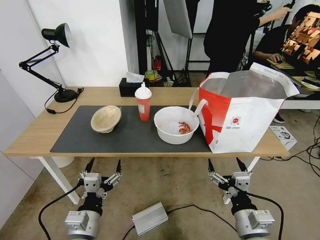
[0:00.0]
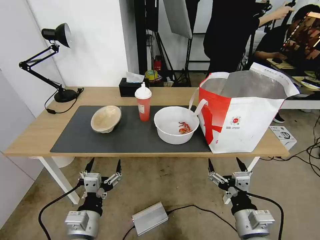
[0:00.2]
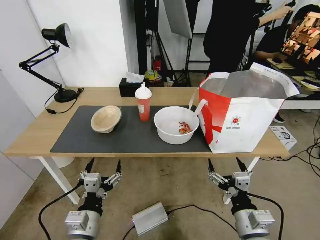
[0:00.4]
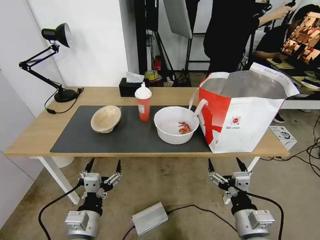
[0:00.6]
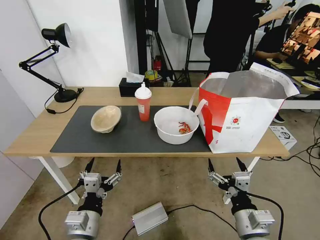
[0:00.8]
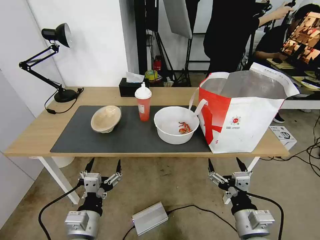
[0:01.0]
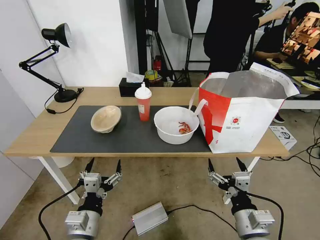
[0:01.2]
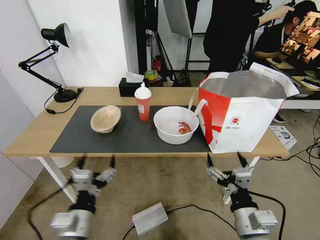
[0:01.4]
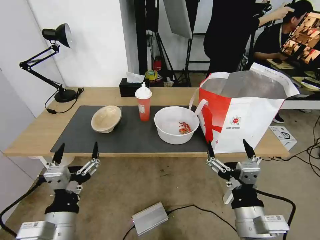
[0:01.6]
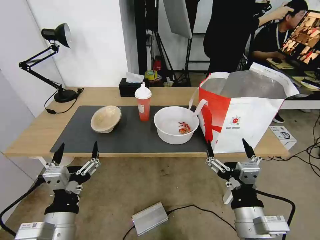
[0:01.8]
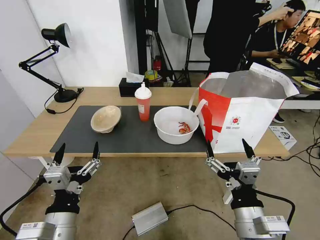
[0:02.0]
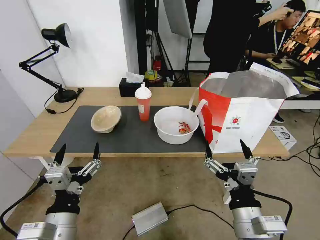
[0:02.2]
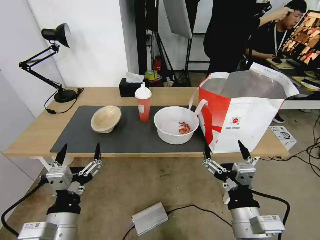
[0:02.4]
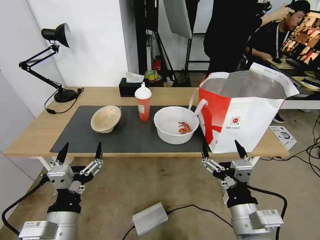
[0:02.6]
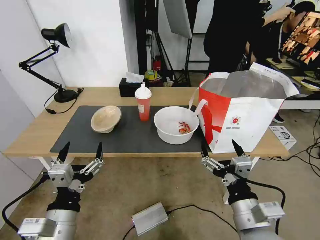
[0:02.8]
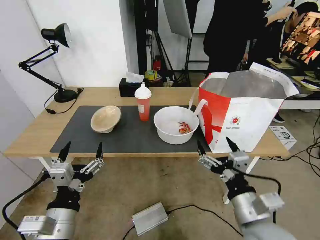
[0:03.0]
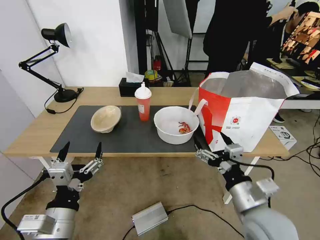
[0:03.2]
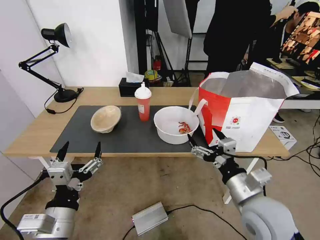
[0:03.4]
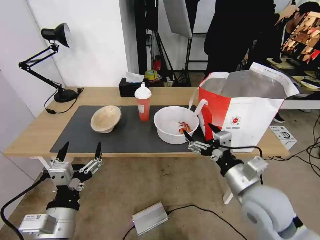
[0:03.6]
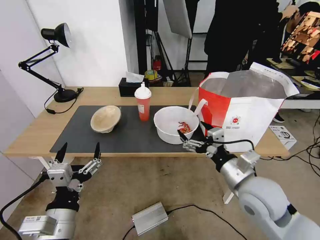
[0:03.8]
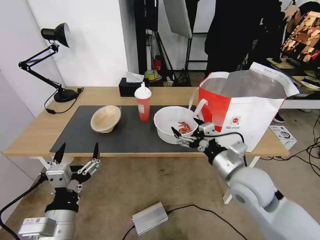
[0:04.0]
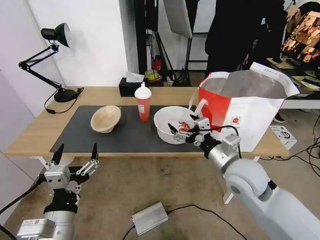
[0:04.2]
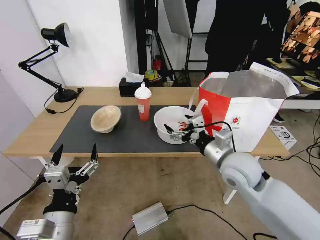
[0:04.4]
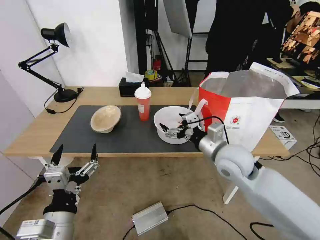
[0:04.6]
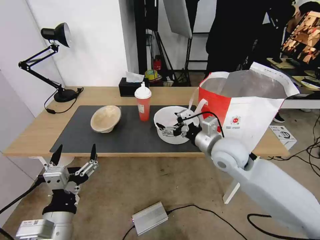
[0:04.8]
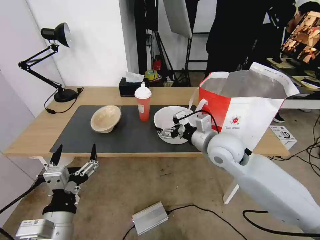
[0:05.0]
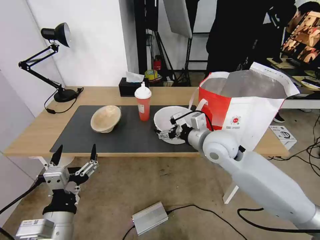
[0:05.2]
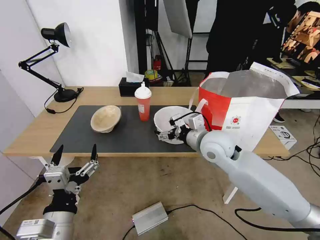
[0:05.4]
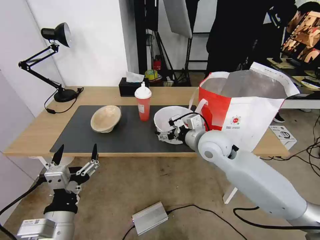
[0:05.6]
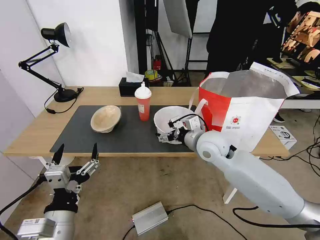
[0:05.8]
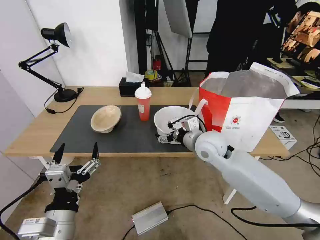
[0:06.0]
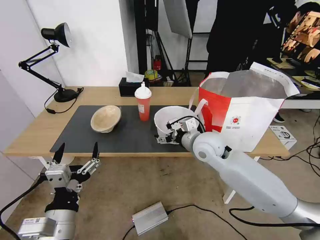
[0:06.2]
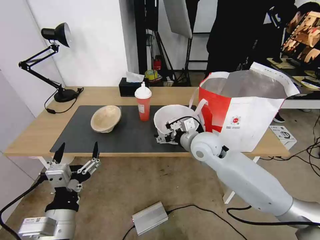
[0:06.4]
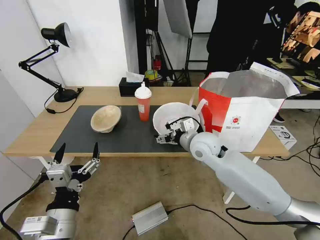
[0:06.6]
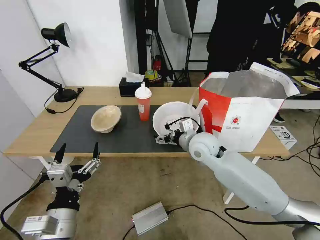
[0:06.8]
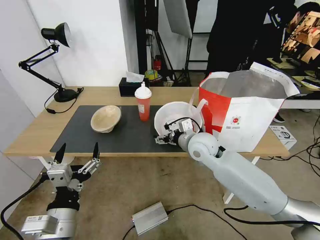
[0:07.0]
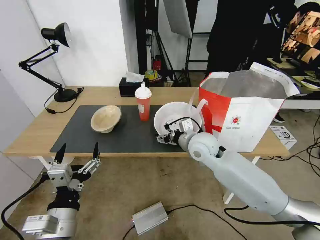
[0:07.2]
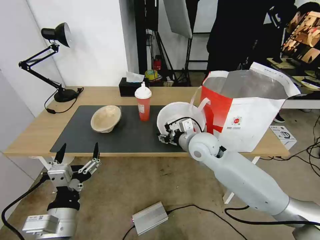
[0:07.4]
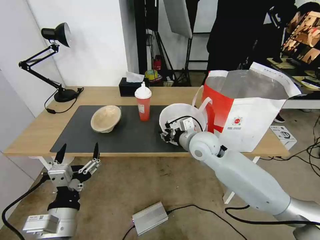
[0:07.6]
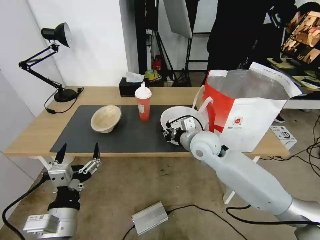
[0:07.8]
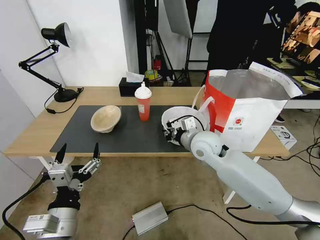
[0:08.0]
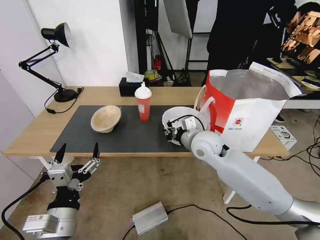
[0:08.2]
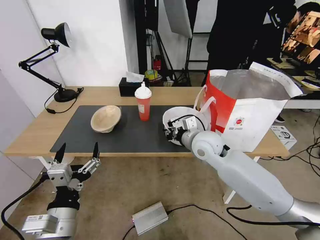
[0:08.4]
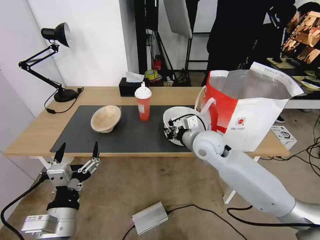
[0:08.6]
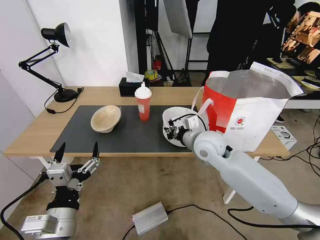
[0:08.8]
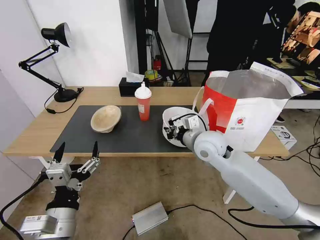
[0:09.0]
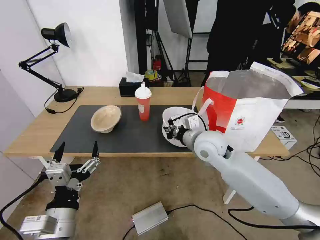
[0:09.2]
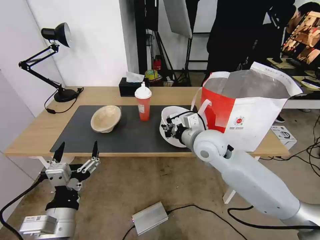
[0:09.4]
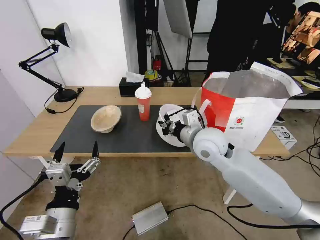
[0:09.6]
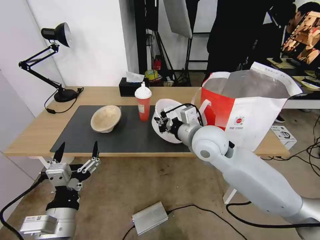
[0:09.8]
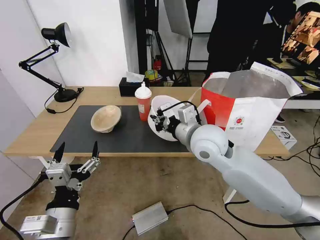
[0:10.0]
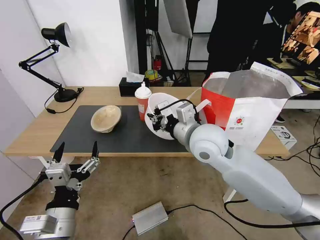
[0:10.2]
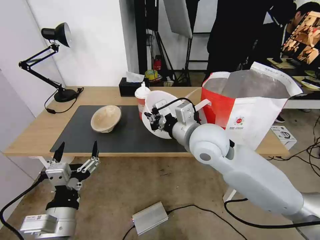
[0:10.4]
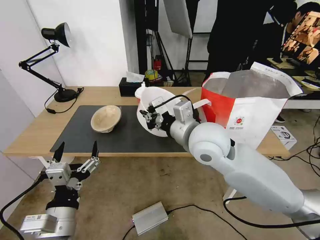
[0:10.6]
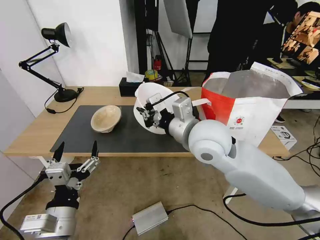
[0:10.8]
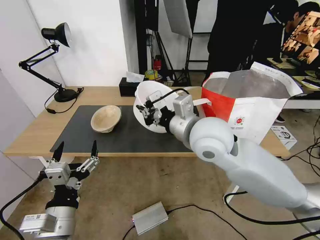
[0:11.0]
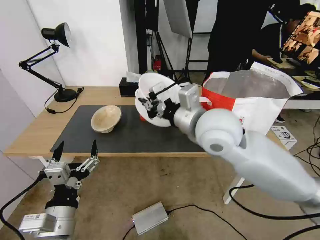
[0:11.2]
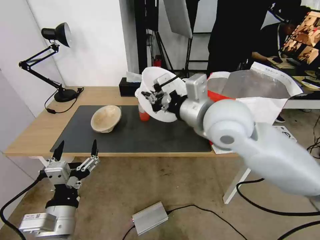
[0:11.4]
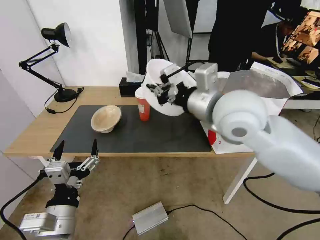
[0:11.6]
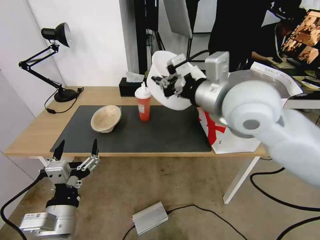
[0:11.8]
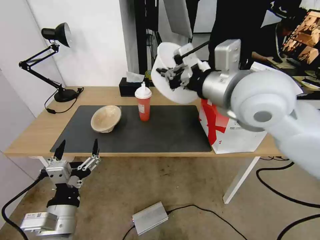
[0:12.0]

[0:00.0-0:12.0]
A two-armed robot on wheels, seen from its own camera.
Task of the whole recording: Pick up the trash from the table and place it into the takeout bag.
0:01.6 to 0:03.0: The grippers make only small movements.
0:03.0 to 0:04.4: The right gripper moves forward, roughly 15 cm.
0:04.4 to 0:06.0: The right gripper heads forward and to the left, covering some 10 cm.
0:06.0 to 0:07.6: The right gripper closes.
0:07.6 to 0:09.0: The right gripper closes.
0:09.0 to 0:10.4: The right gripper goes roughly 10 cm upward and backward.
0:10.4 to 0:12.0: The right gripper heads upward and to the right, covering roughly 15 cm.

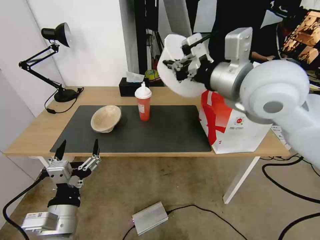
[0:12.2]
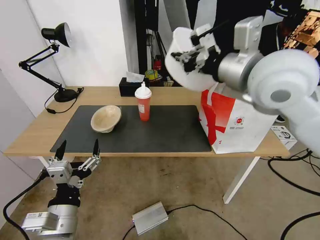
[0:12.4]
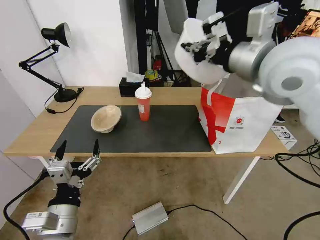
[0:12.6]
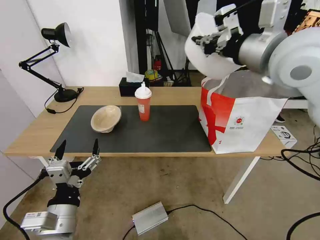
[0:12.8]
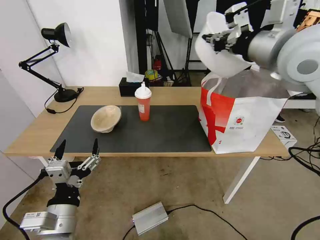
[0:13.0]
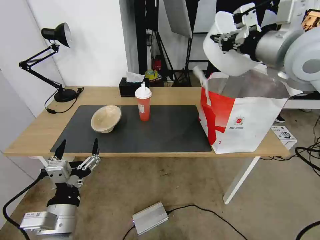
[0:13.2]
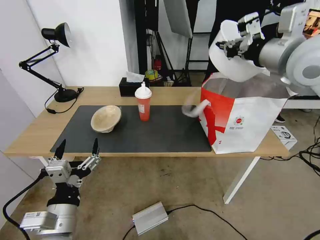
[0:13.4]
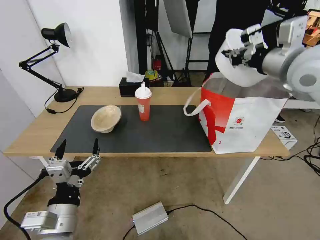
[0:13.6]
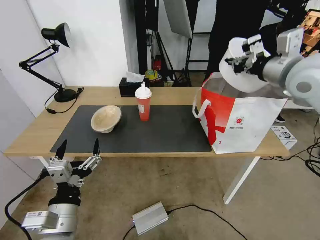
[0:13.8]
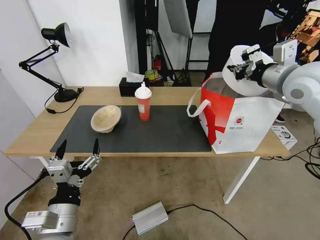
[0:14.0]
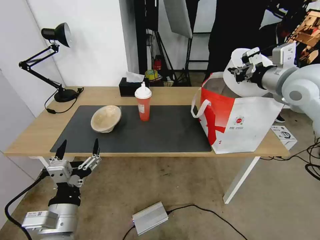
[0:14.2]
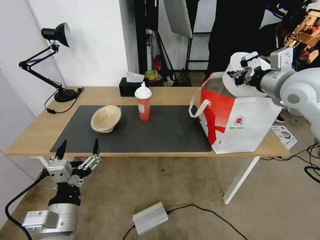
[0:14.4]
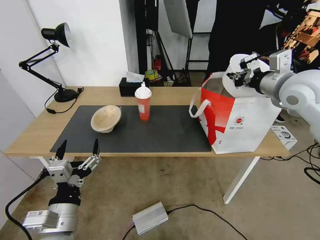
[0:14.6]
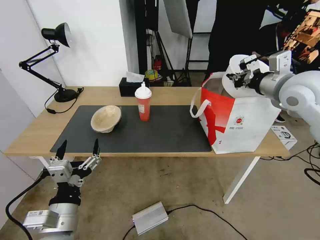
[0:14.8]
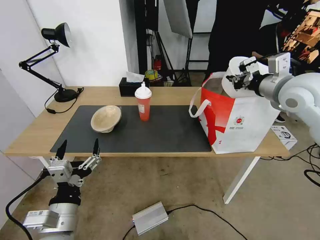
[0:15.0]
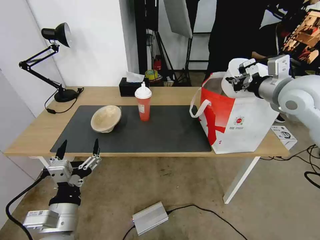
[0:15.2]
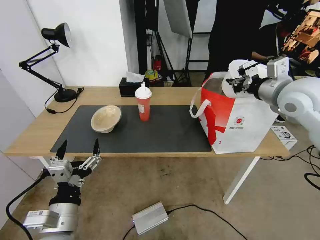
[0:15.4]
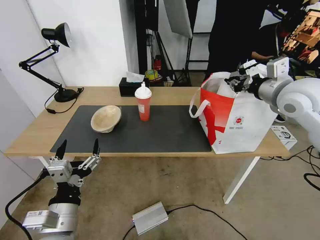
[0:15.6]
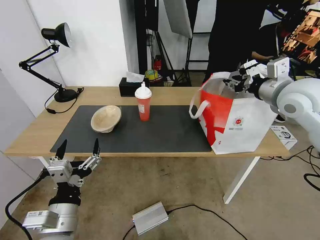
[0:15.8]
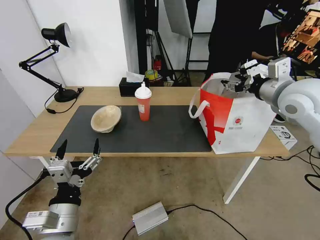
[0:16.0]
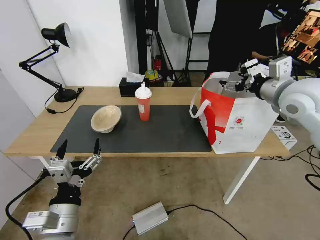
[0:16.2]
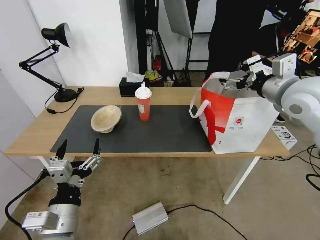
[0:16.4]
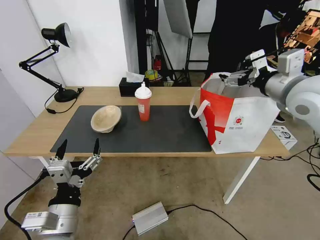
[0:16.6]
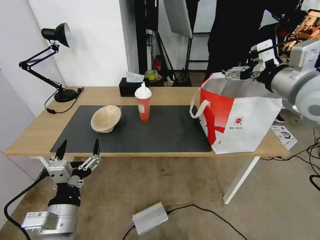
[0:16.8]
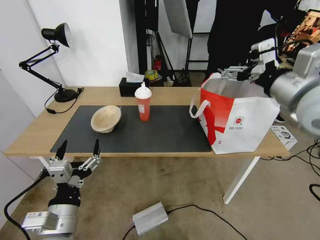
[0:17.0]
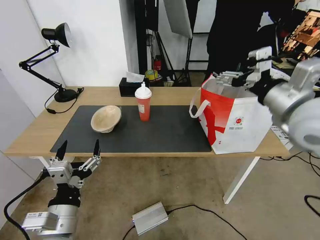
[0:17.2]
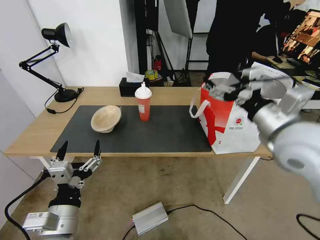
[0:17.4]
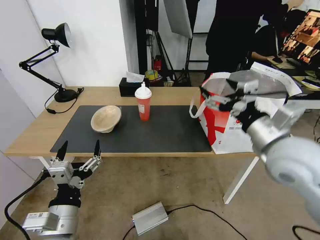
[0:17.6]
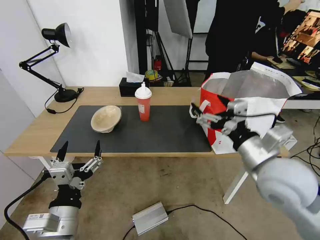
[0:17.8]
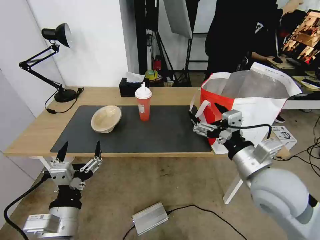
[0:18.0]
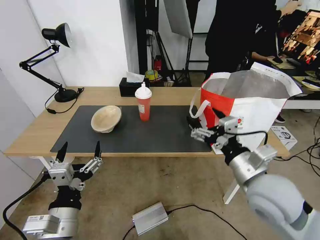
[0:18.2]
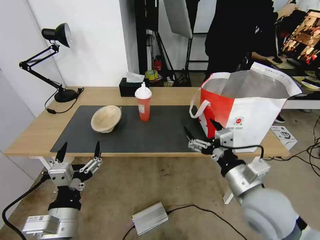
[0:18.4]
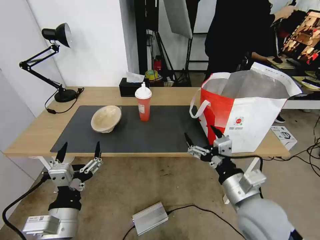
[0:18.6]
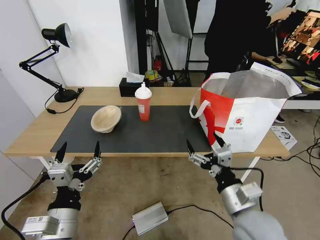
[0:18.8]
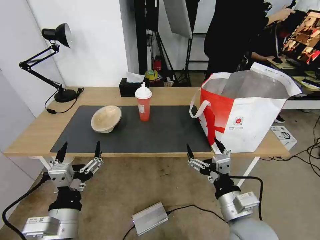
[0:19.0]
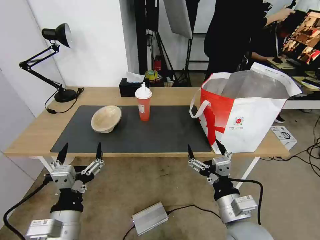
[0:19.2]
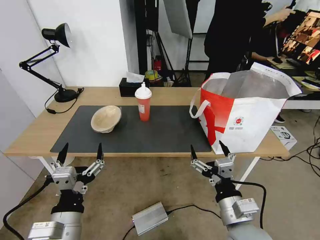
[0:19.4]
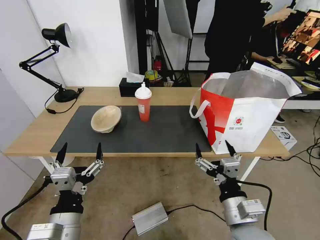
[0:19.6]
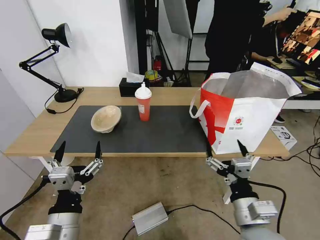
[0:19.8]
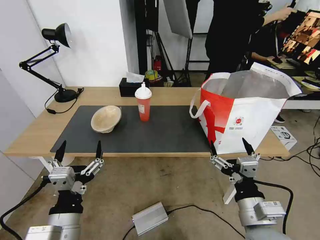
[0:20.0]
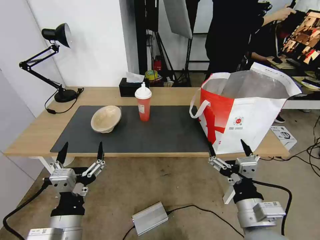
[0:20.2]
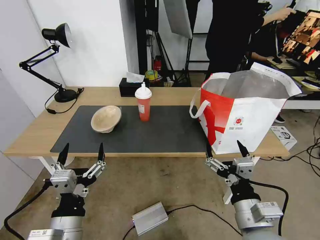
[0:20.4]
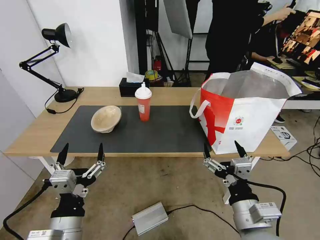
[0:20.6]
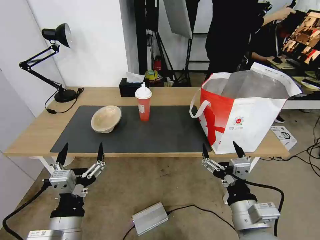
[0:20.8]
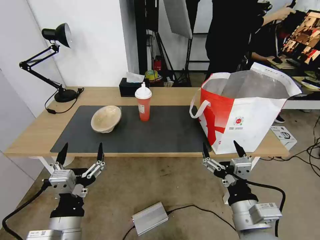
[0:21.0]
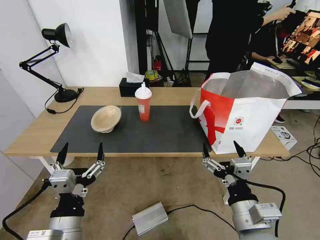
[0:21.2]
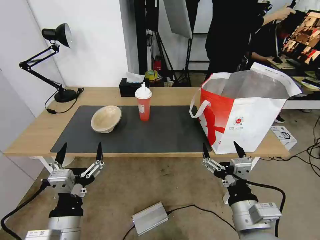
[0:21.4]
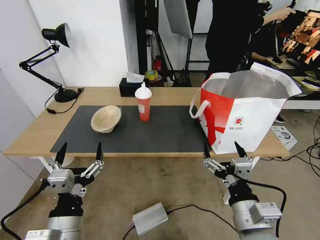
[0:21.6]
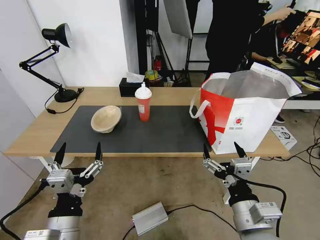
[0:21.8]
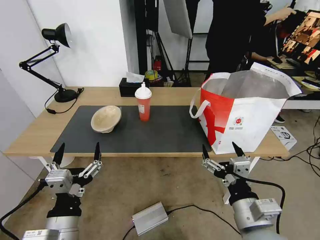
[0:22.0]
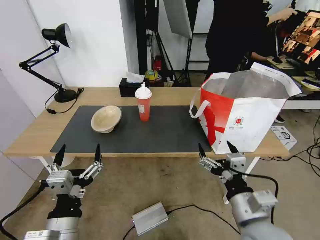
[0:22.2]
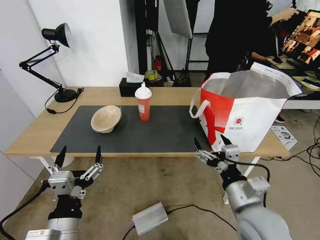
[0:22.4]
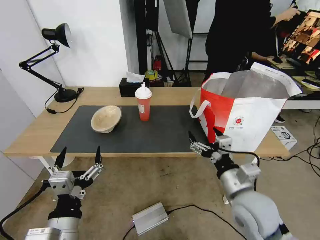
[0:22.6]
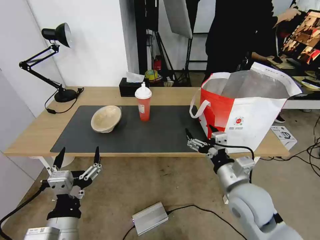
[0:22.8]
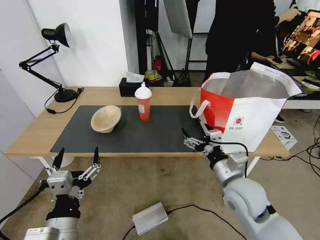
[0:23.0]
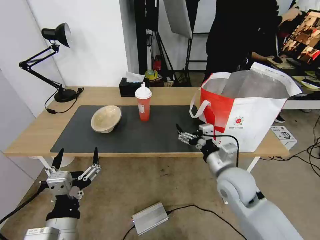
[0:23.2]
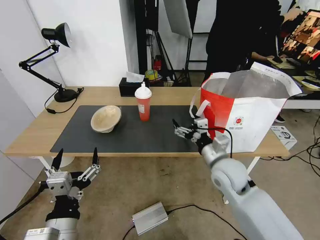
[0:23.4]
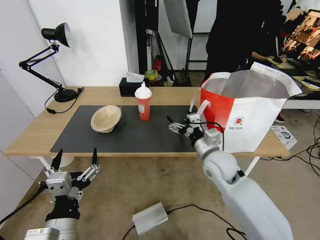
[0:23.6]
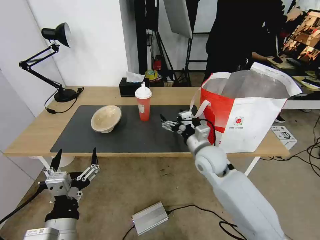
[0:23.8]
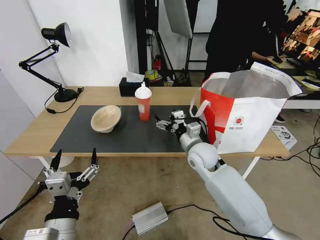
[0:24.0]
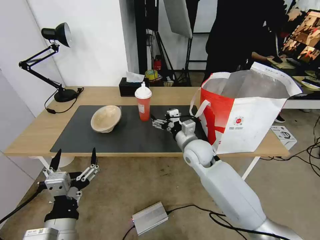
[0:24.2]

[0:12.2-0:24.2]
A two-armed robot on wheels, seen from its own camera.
Task of the whole recording: Pick up the trash from the table and place it into the takeout bag.
0:12.2 to 0:13.8: The right gripper is displaced to the right and forward by roughly 15 cm.
0:13.8 to 0:15.2: The grippers move only a little.
0:15.2 to 0:16.6: The right gripper opens its fingers.
0:16.6 to 0:18.2: The right gripper goes roughly 25 cm downward, backward and to the left.
0:18.2 to 0:19.8: The right gripper moves backward and downward, approximately 10 cm.
0:19.8 to 0:21.2: The grippers move only a little.
0:21.2 to 0:22.6: The right gripper heads forward, covering roughly 10 cm.
0:22.6 to 0:24.2: The right gripper shifts roughly 20 cm forward and to the left.
